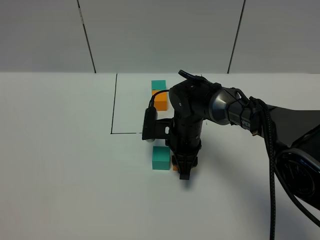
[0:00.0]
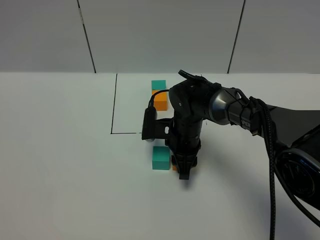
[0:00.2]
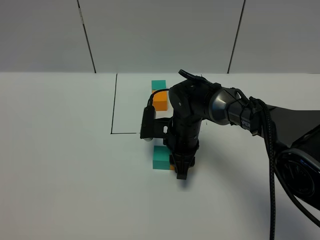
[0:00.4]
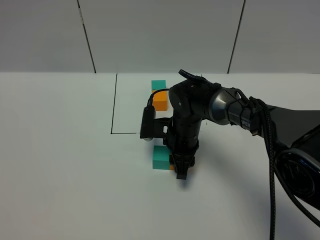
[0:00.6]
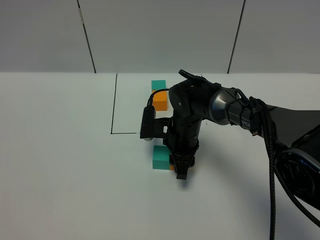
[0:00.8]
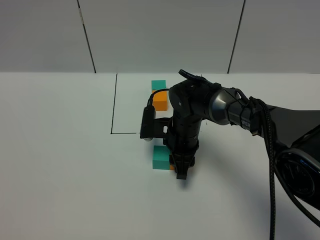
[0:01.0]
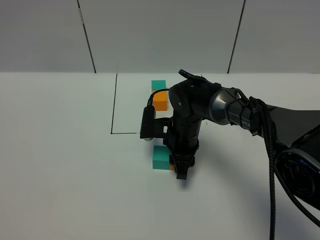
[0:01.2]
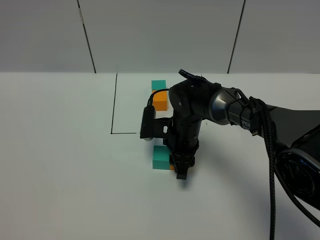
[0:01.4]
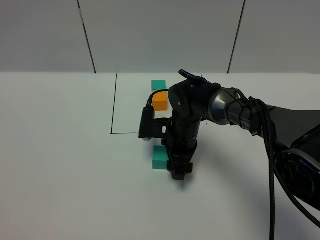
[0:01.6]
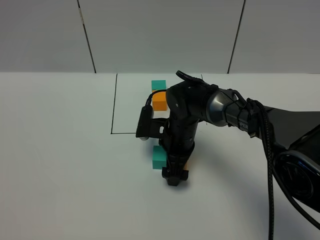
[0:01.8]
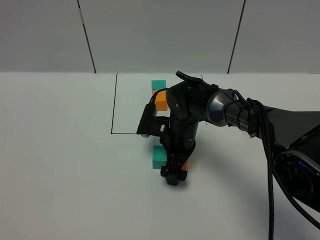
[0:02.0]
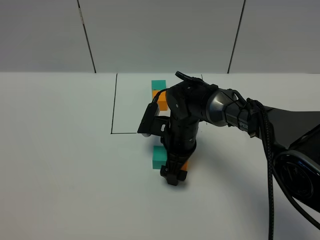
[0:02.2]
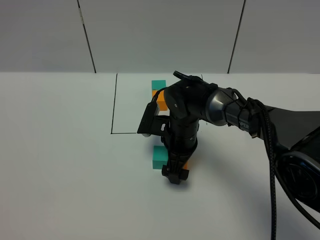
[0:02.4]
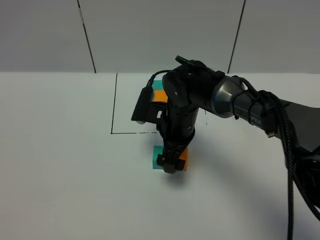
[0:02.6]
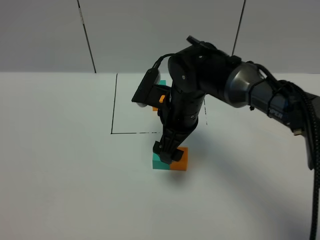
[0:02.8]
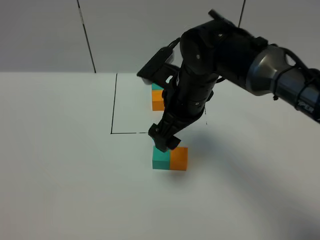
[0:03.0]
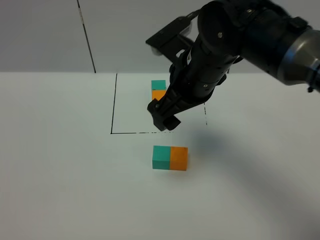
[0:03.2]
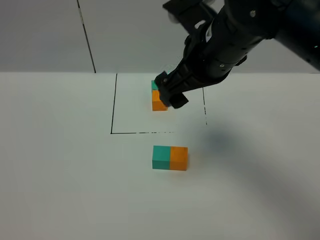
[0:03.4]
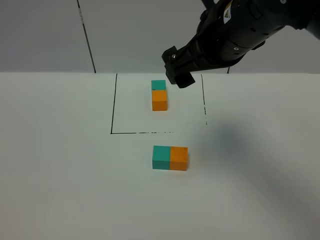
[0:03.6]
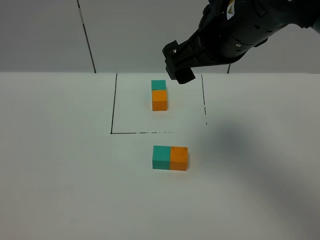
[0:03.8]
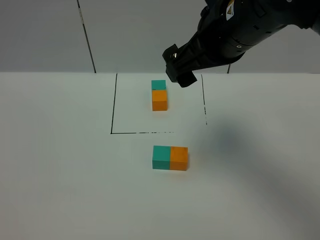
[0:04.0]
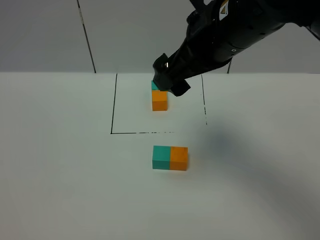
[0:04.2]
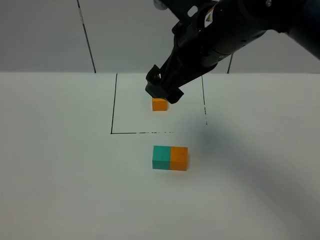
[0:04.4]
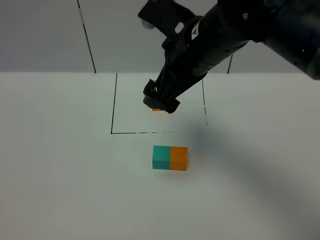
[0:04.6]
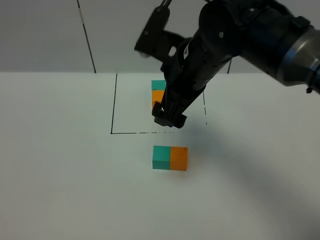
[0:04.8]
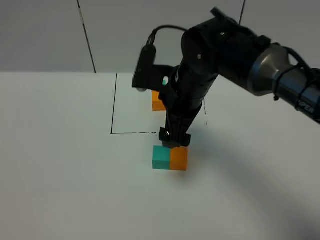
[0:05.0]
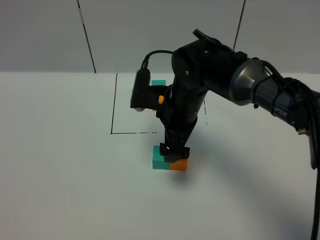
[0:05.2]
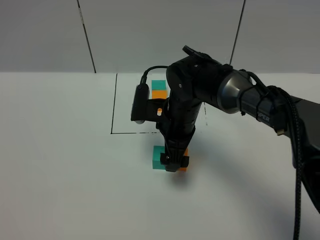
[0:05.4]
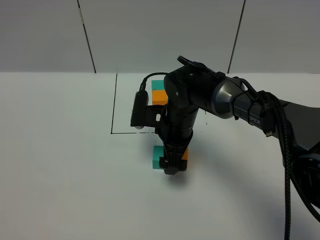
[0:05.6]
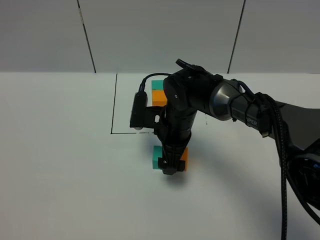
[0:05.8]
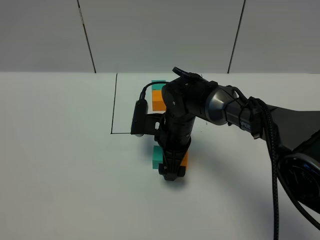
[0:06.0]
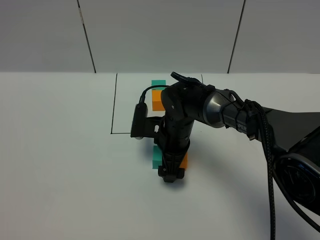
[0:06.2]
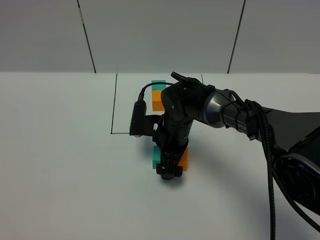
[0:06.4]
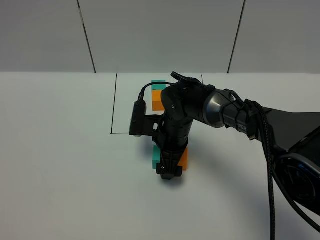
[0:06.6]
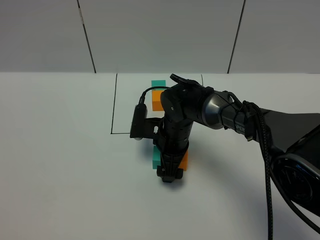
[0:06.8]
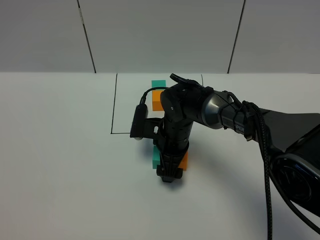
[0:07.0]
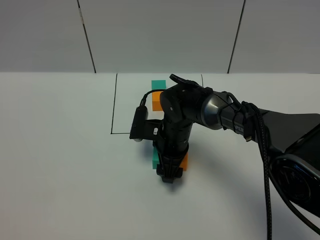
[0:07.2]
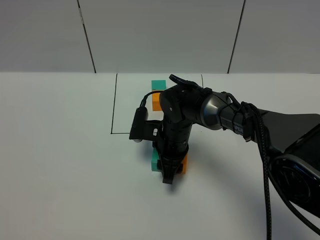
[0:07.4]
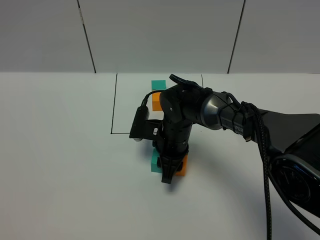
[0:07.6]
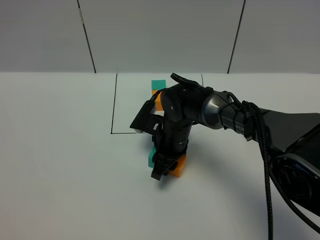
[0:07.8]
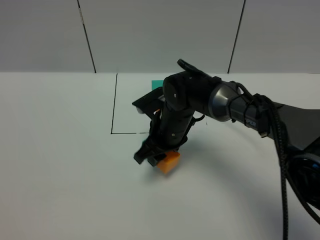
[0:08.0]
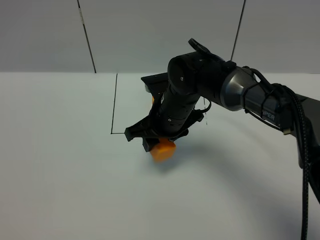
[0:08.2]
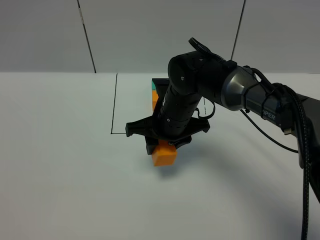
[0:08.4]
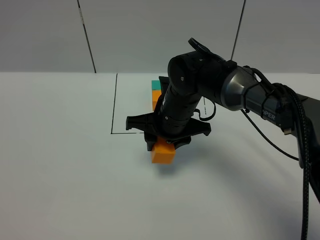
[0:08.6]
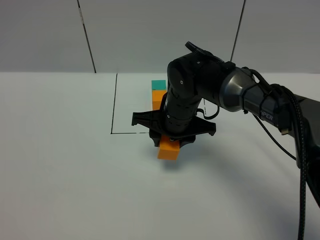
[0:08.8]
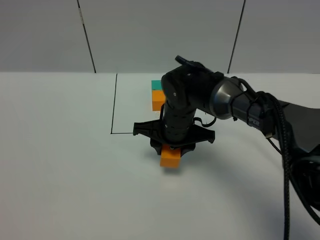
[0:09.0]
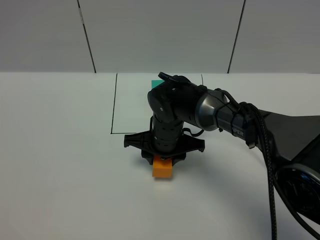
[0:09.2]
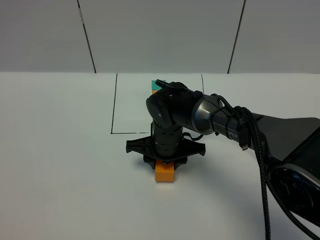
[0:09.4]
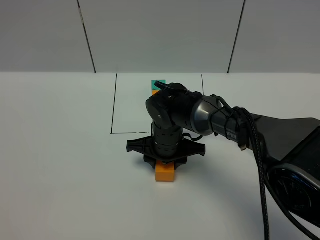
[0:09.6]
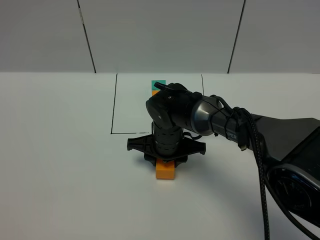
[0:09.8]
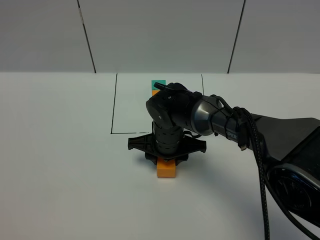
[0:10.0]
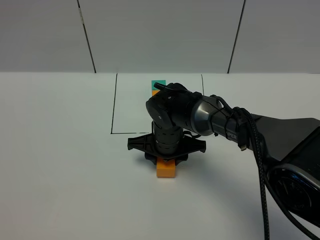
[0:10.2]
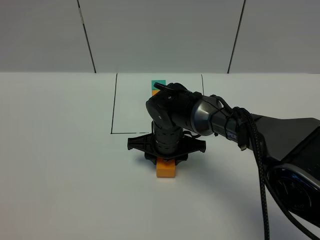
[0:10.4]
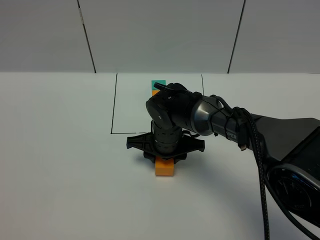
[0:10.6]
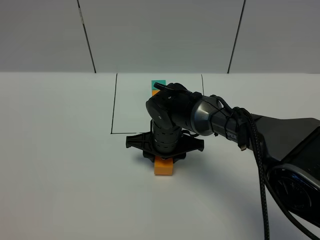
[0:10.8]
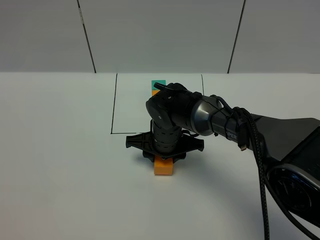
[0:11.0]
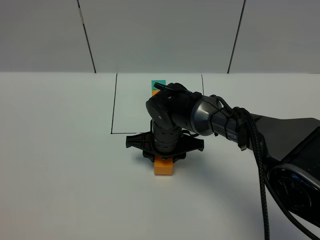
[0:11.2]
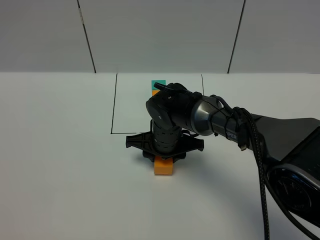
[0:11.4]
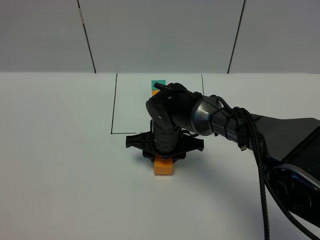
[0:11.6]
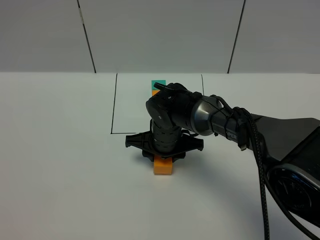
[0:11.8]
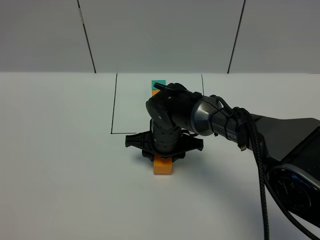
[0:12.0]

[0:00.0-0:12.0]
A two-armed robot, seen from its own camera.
Task of the whole recording: According to the building block template in front, assemble the scattered blocks together.
Step, 0:00.0 to 0:02.4: Put the orange cube on the right of the green cube.
0:00.0 to 0:01.6: The right gripper opens.
0:01.6 to 0:03.0: The right gripper moves upward, about 15 cm, and opens up.
0:03.0 to 0:04.4: The right gripper is displaced upward by about 10 cm.
0:04.4 to 0:06.0: The right gripper travels downward by approximately 25 cm.
0:06.0 to 0:07.6: The right gripper closes.
0:07.6 to 0:09.0: The right gripper heads upward, covering roughly 5 cm.
0:09.0 to 0:10.4: The grippers make only small movements.
0:10.4 to 0:12.0: Both grippers stay about where they are.

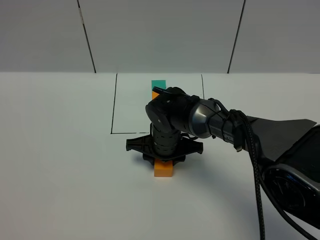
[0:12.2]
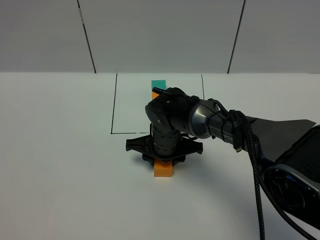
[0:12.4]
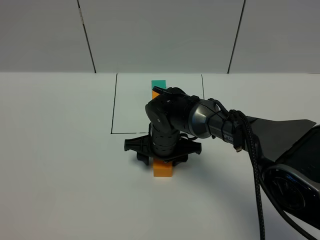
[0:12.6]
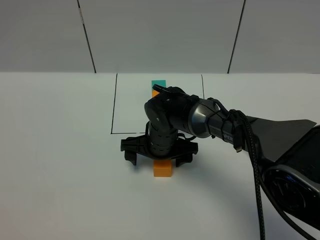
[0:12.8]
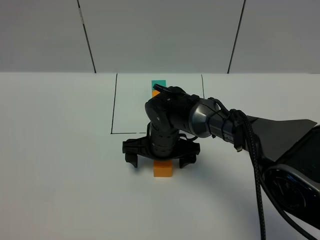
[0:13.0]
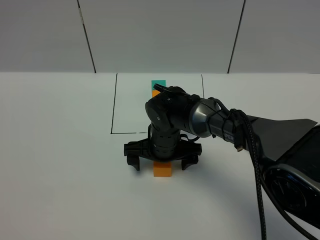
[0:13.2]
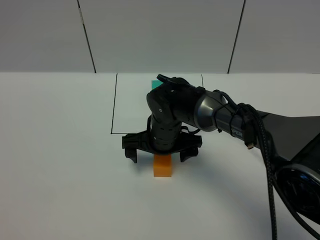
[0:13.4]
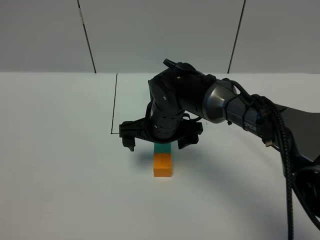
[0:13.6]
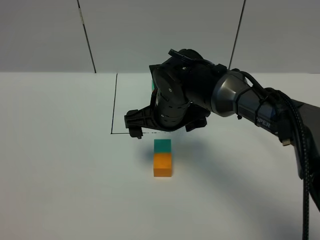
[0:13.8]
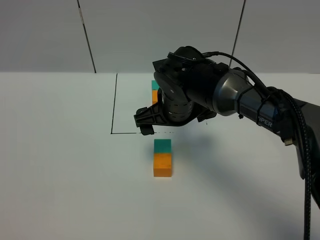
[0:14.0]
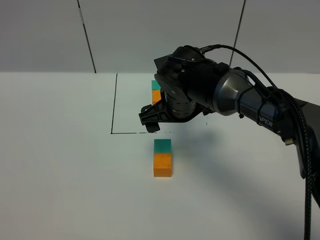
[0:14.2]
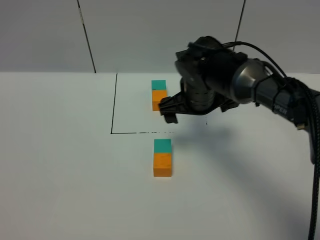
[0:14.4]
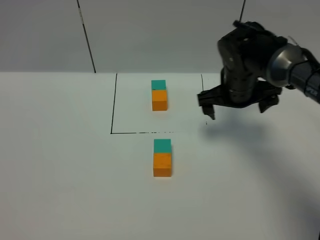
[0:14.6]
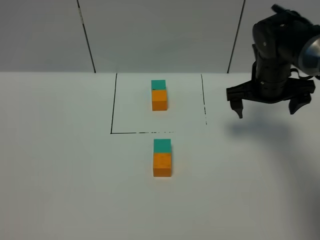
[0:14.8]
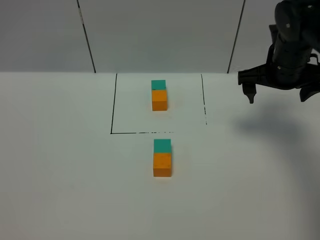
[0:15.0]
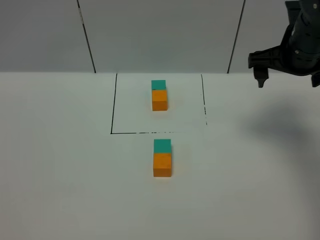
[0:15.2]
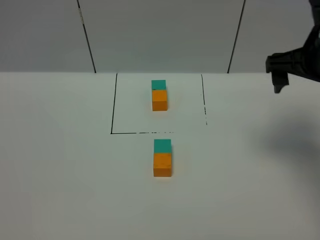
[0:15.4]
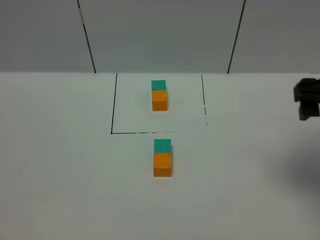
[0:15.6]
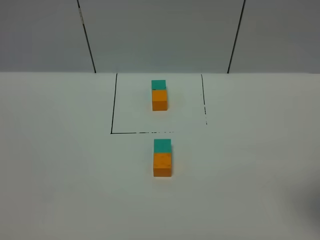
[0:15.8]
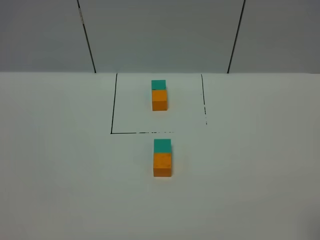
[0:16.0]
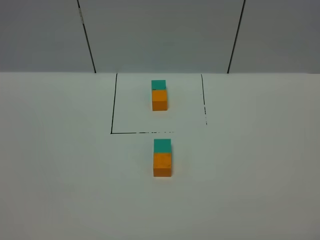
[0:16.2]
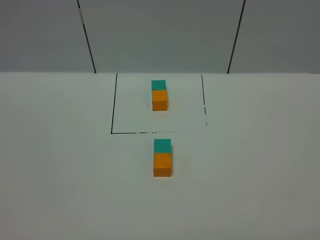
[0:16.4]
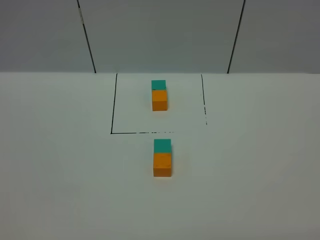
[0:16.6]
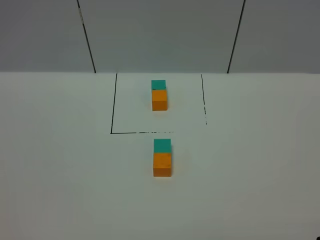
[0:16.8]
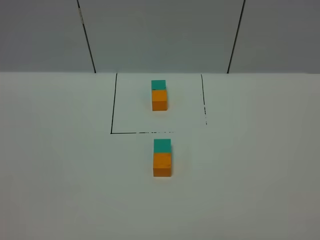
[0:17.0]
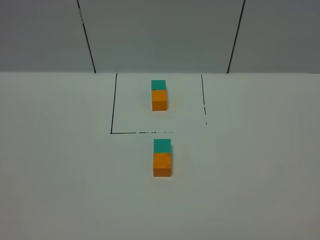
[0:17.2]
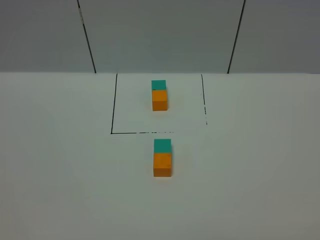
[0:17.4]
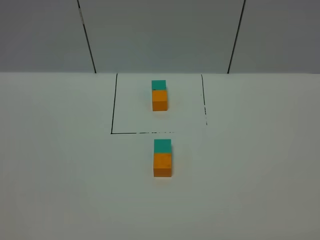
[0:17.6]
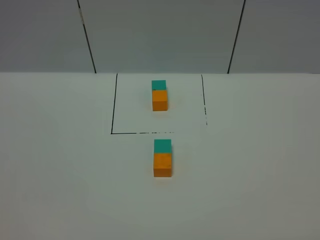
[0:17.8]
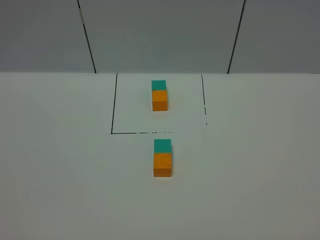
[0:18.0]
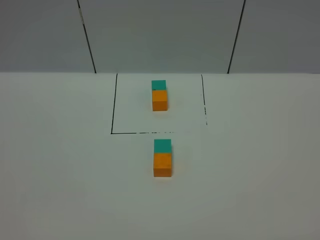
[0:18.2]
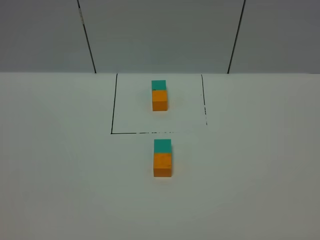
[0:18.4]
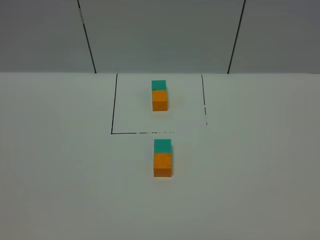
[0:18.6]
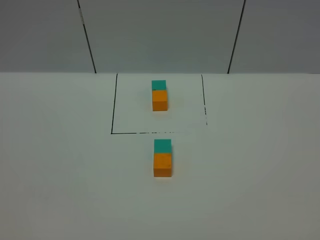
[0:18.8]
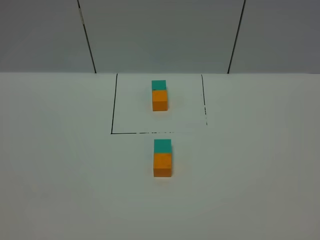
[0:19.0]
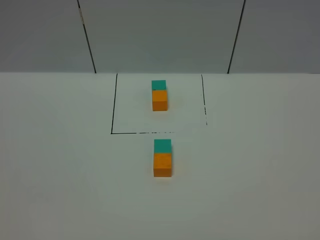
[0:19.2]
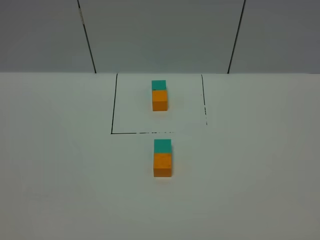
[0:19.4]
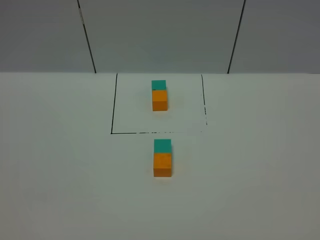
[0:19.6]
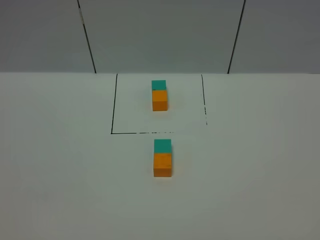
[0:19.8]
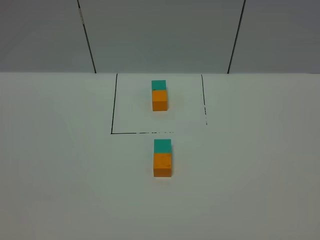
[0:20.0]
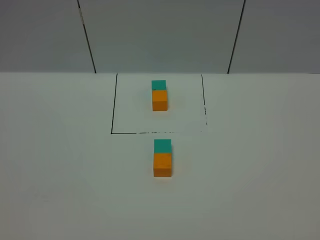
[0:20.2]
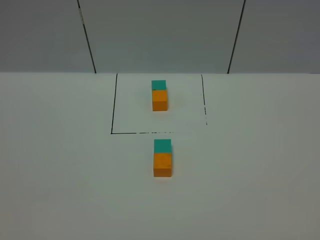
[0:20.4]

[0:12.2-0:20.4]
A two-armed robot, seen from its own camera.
Task of the whole recording: According to the building block template in front, assemble the scattered blocks together.
0:12.2 to 0:13.8: The right gripper moves upward, approximately 10 cm, and opens its fingers.
0:13.8 to 0:15.4: The right gripper shifts roughly 25 cm to the right and upward.
0:15.4 to 0:17.2: The right gripper goes approximately 30 cm backward.
0:18.8 to 0:20.4: Neither gripper changes place.

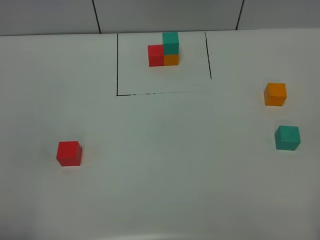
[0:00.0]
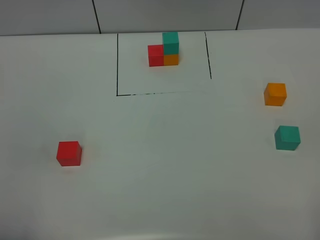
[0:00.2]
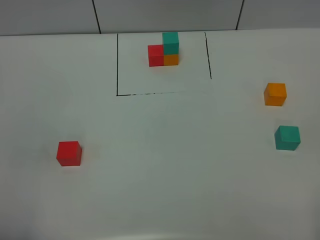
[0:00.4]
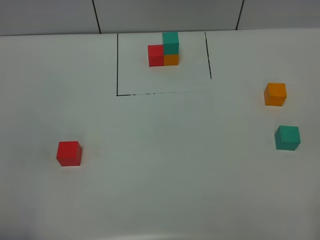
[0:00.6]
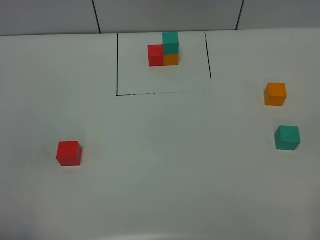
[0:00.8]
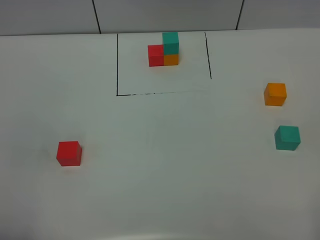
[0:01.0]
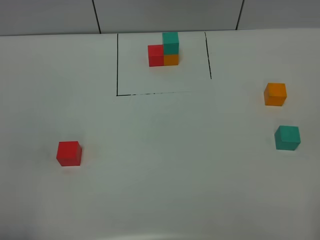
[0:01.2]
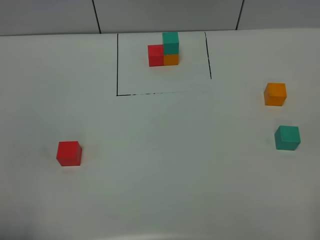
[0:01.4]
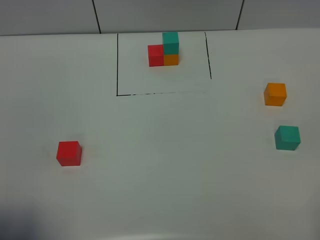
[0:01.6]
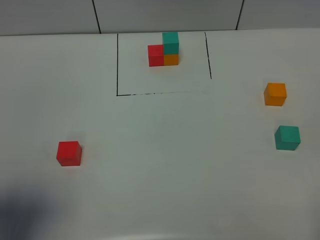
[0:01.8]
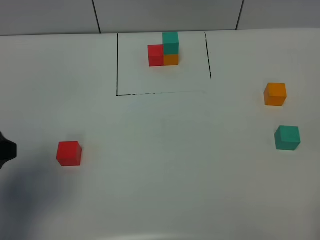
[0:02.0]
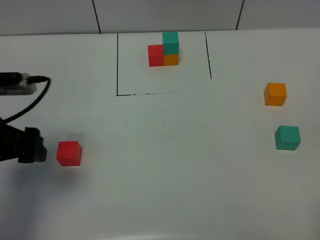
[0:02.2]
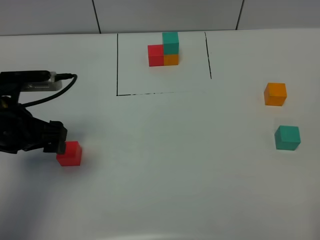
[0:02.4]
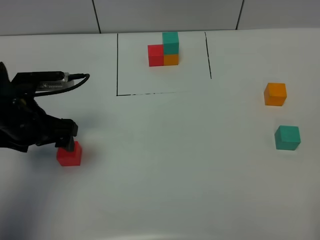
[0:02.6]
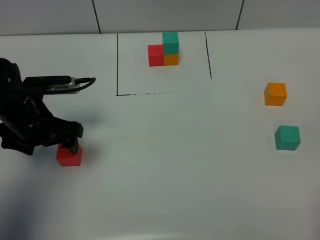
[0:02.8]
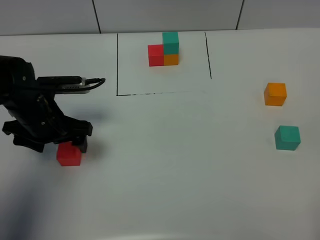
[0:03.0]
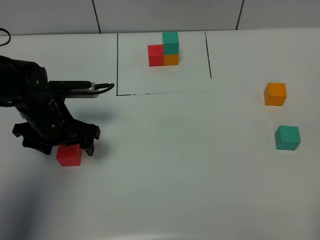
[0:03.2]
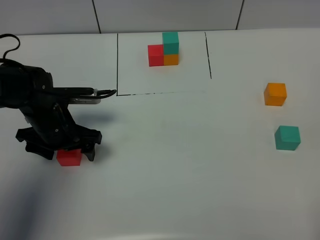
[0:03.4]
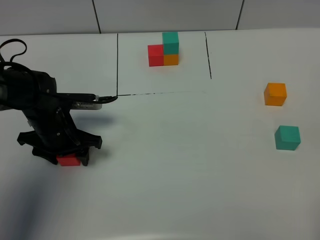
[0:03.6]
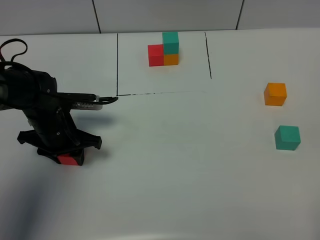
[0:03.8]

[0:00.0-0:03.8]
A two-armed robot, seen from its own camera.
Task of the whole recording: According to the building block template in front, assemble the scattered blocks together.
0:00.0 to 0:01.2: Both grippers stay about where they are.
0:01.2 to 0:02.6: The left gripper is displaced forward by approximately 30 cm.
0:02.6 to 0:03.8: The left gripper shifts about 10 cm downward, and closes.
